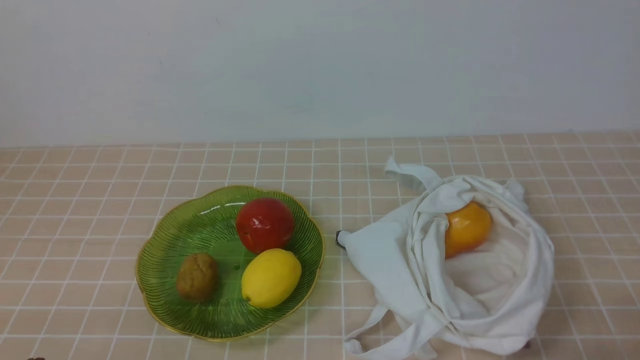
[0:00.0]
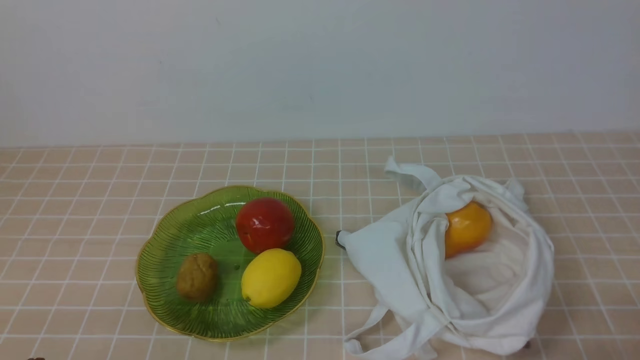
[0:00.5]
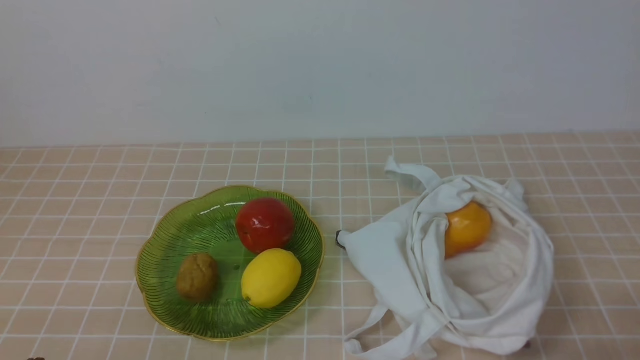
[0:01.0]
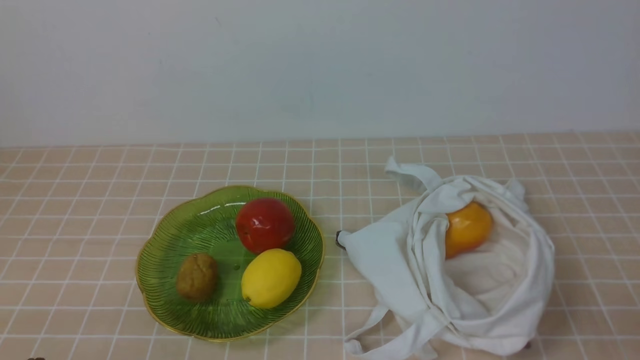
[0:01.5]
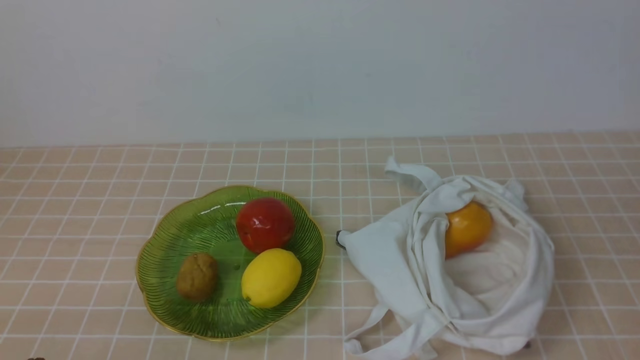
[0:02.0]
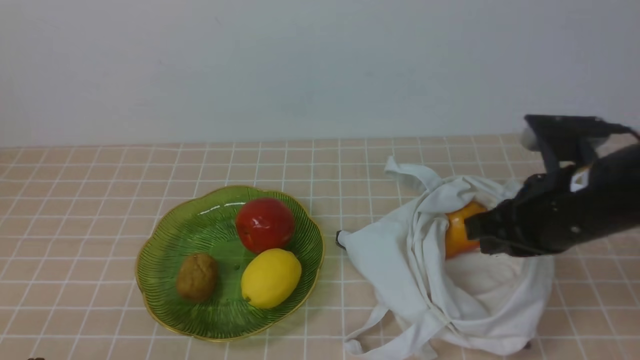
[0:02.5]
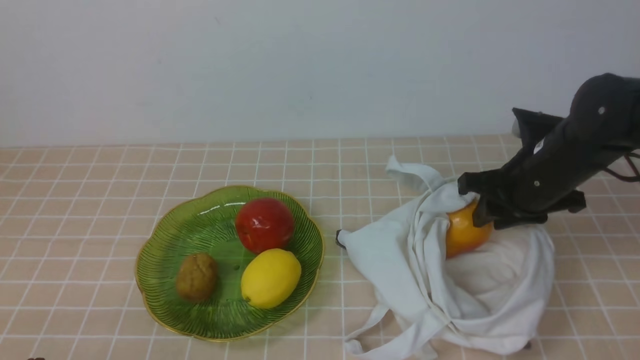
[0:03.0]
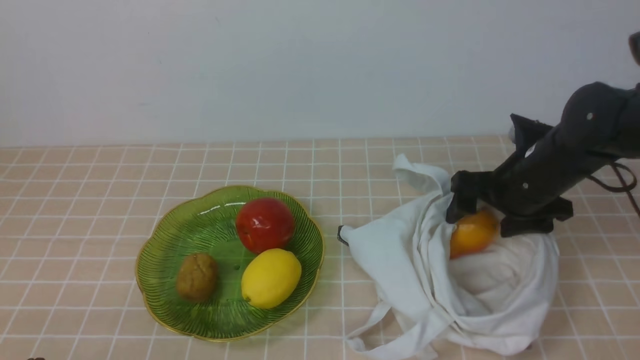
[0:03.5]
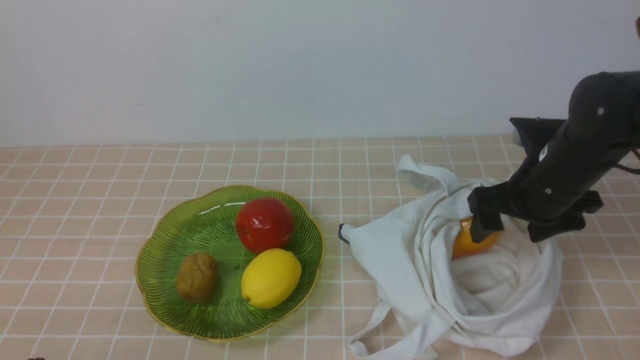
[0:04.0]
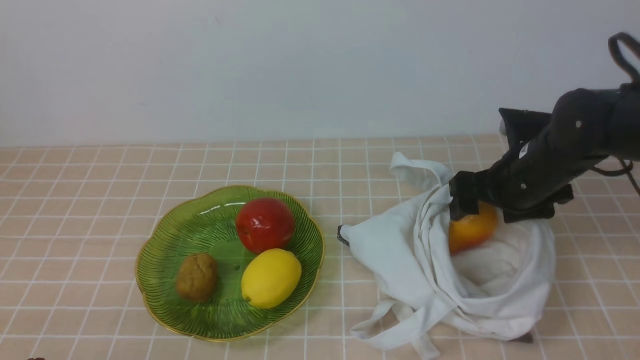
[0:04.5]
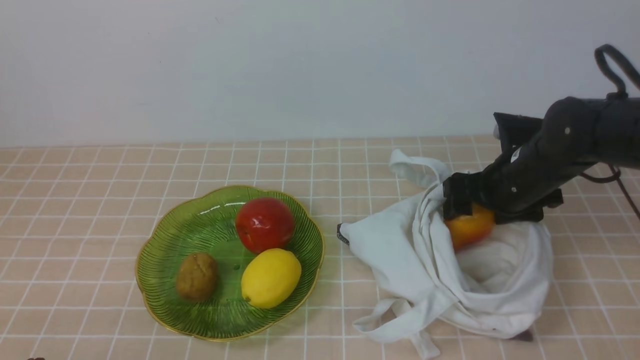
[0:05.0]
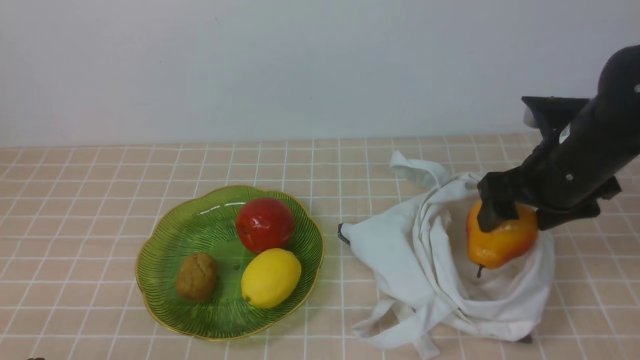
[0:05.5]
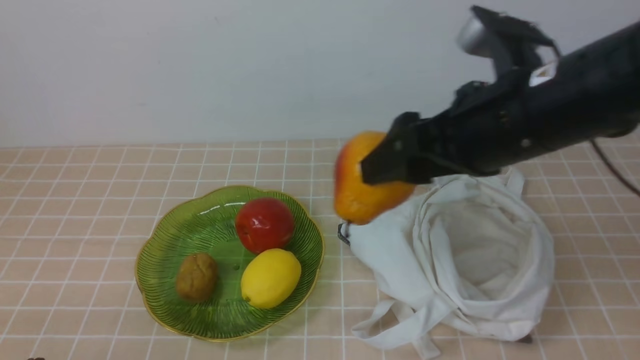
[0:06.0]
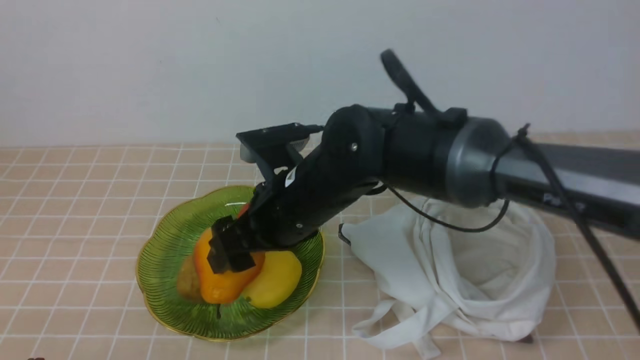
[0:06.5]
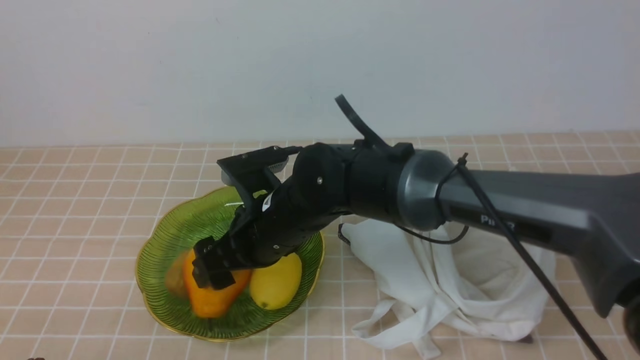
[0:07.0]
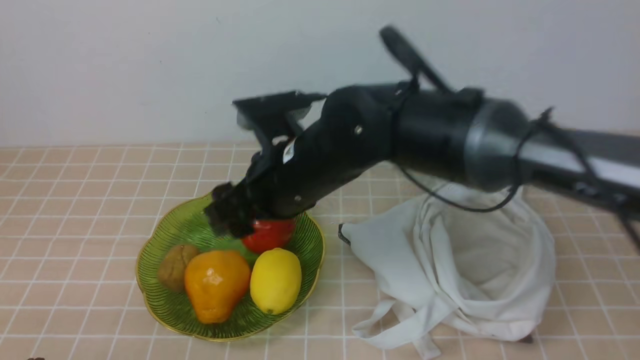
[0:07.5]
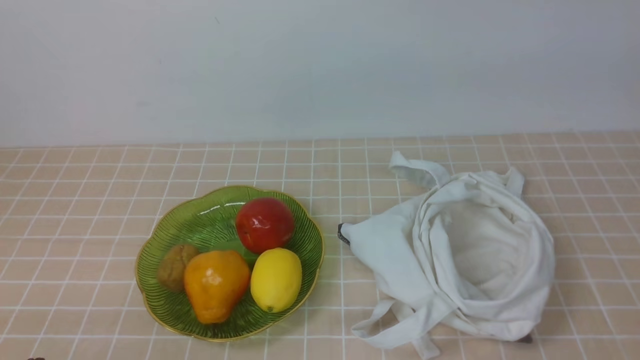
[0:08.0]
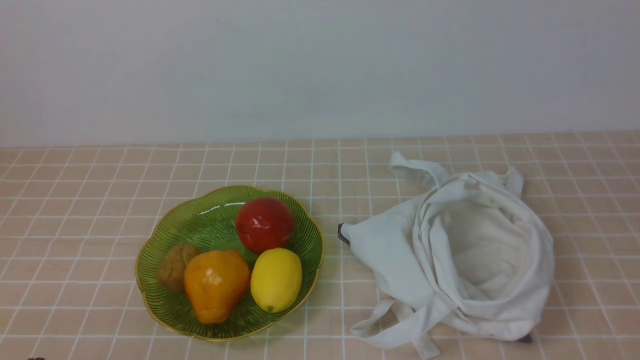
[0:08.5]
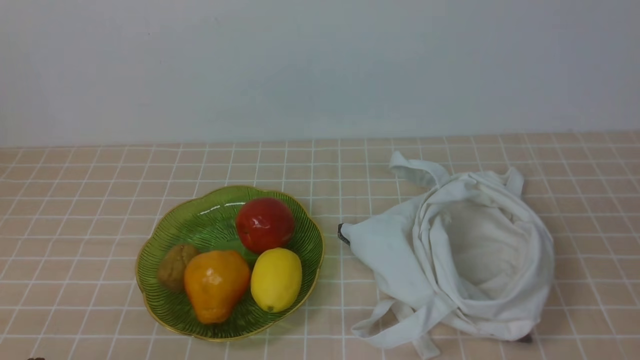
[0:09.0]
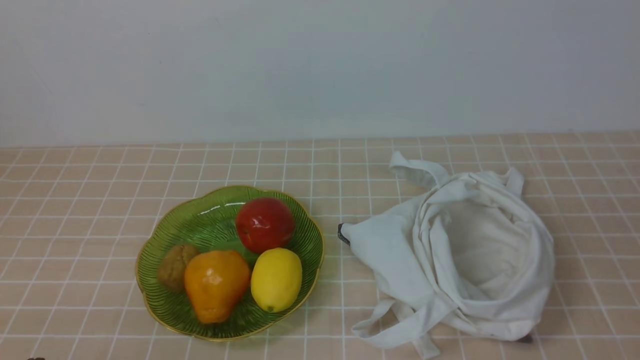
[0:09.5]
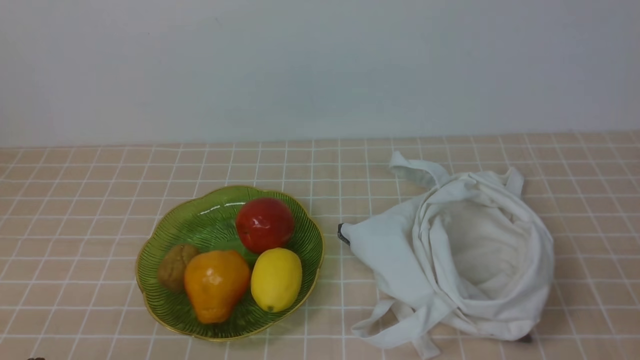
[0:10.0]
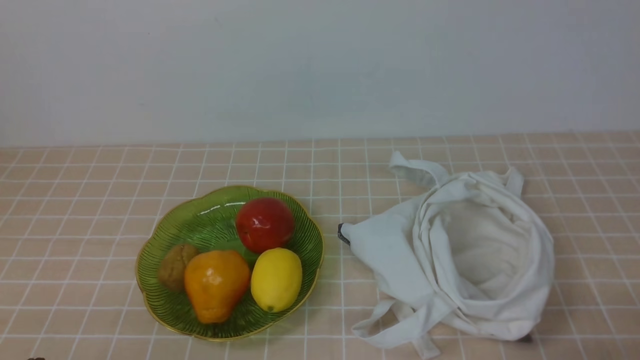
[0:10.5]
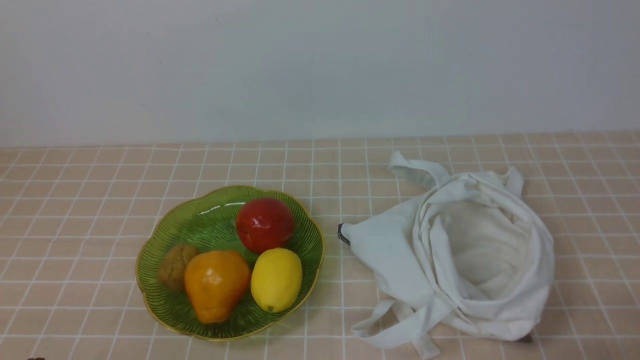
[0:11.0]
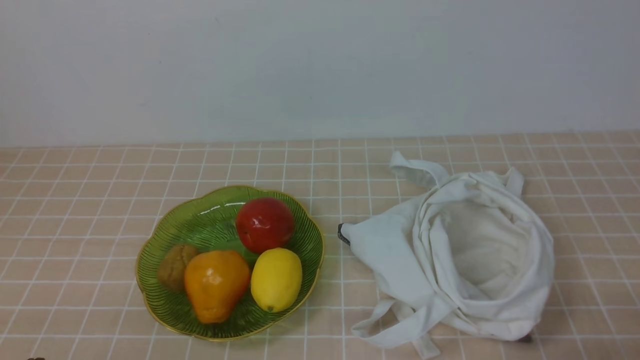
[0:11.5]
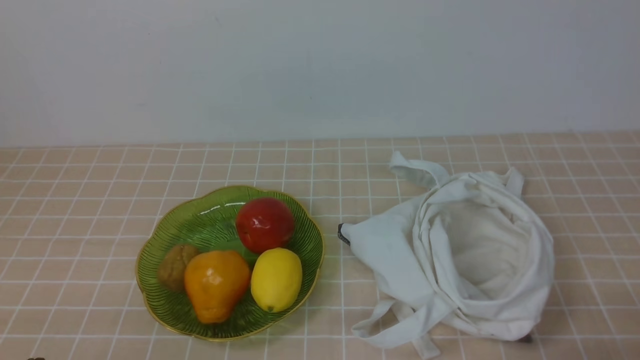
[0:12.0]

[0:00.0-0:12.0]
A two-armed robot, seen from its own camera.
Step, 0:05.5 to 0:07.0: use the left arm to put the pear into the empty plate on the right.
0:02.0 to 0:04.0: The right gripper is displaced forward and downward by some 25 cm, and opens up.
0:04.0 to 0:06.0: The right gripper travels upward, to the left and backward by approximately 15 cm.
0:06.0 to 0:08.0: The right gripper heads upward, backward and to the right, covering approximately 20 cm, and closes its fingers.
0:08.0 to 0:10.0: The right gripper heads downward and backward, covering some 30 cm.
